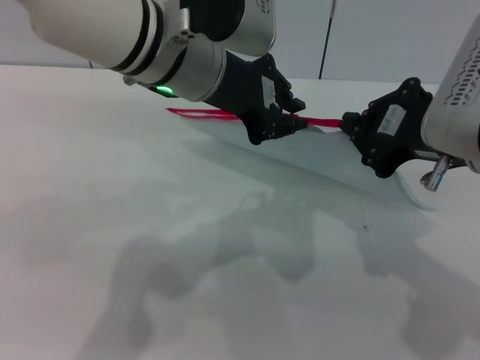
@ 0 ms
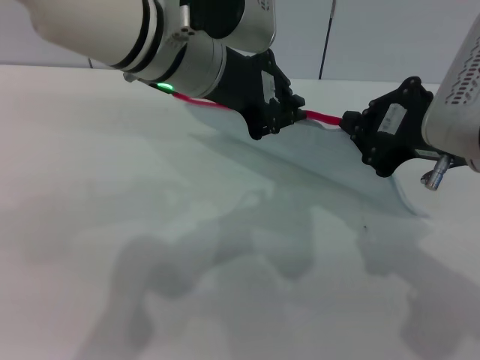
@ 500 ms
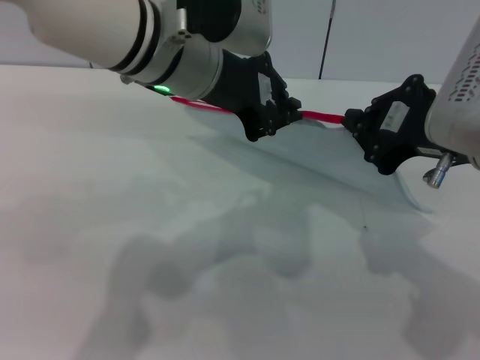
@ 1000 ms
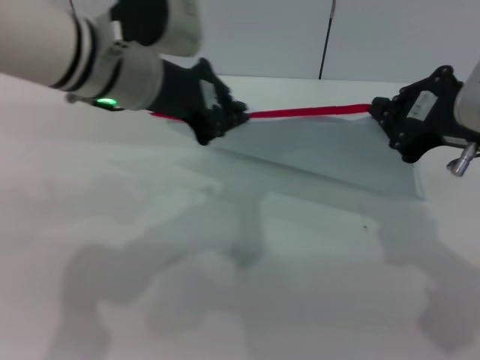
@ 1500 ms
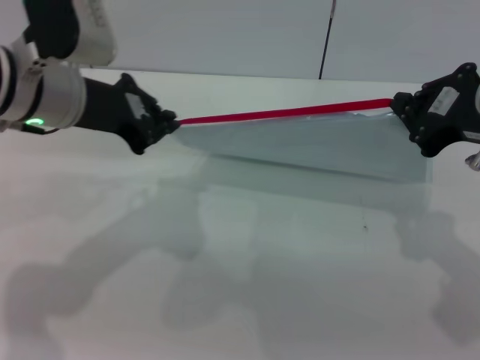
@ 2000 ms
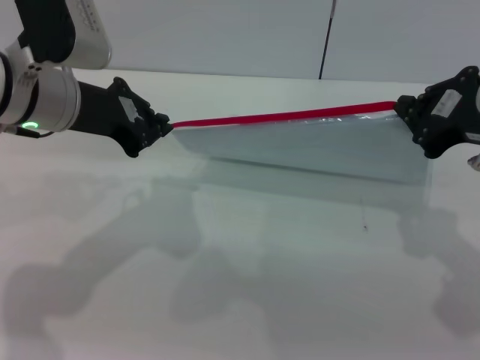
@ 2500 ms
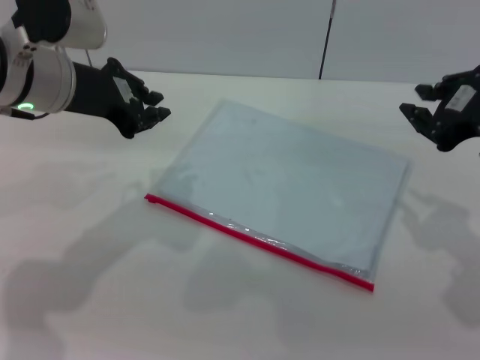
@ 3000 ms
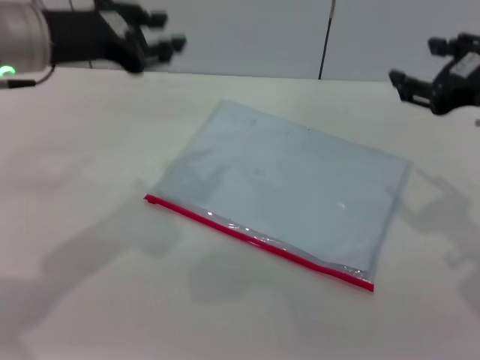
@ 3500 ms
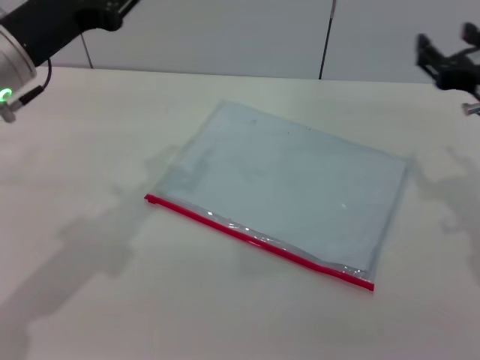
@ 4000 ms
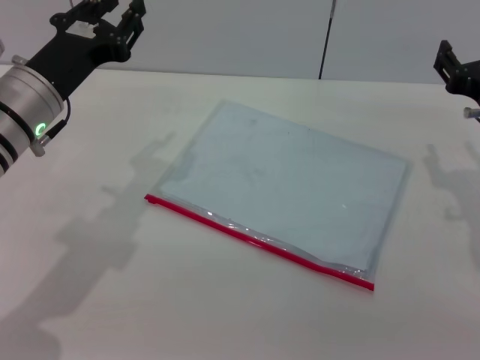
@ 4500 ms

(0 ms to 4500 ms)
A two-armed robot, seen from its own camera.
Step, 0 ms - 2500 ms: Pulling up the zipper on the transparent plastic bag with the left gripper to close it.
0 ms - 2000 ms: The left gripper goes about 10 cm to the left.
2000 ms - 4500 ms: The right gripper goes about 10 cm downward, and opens its fingers. Meanwhile the left gripper heads downward, covering roughly 5 cm, and opens up.

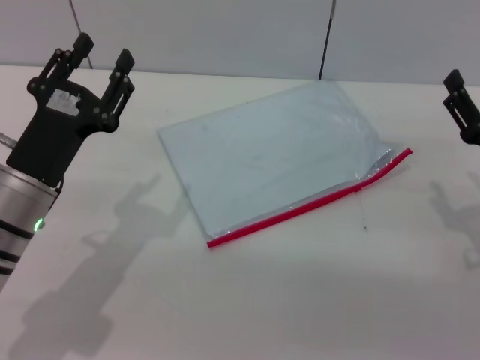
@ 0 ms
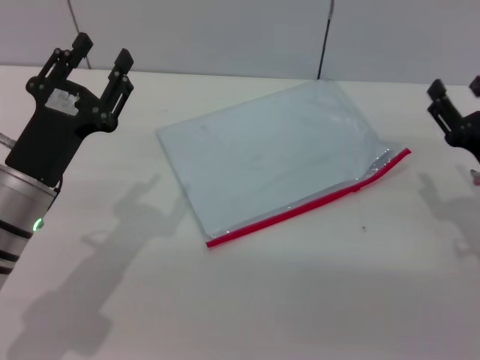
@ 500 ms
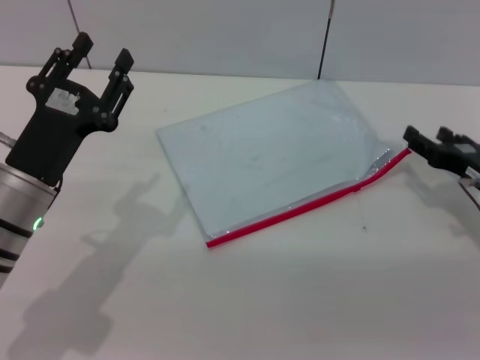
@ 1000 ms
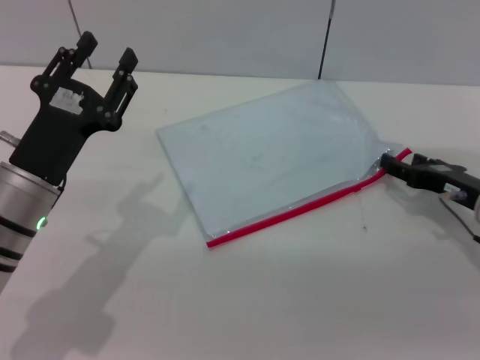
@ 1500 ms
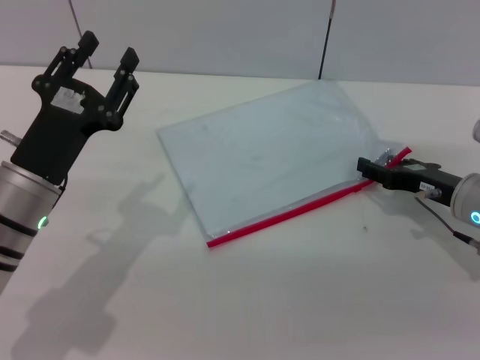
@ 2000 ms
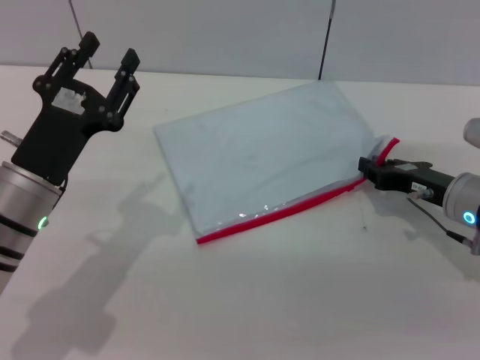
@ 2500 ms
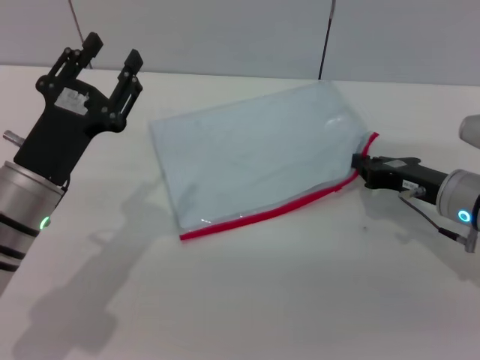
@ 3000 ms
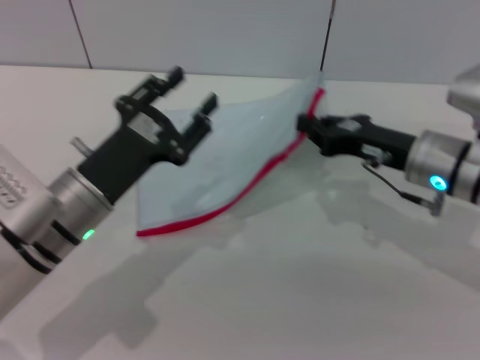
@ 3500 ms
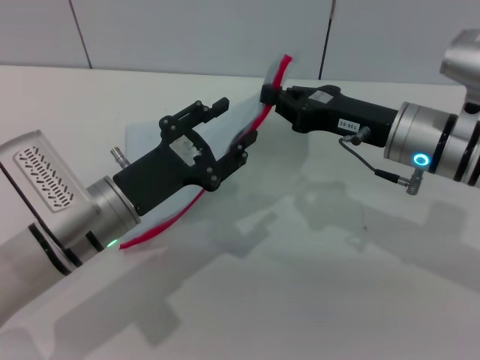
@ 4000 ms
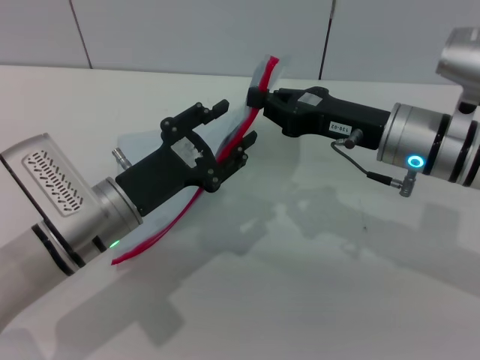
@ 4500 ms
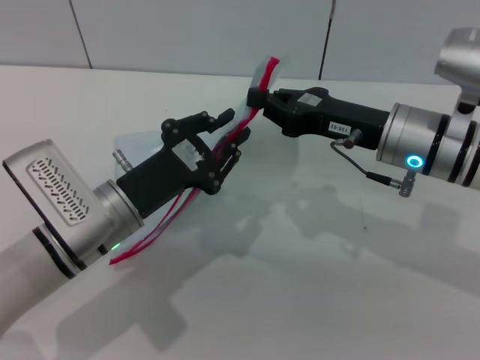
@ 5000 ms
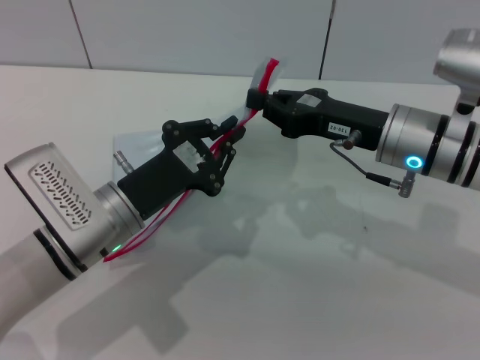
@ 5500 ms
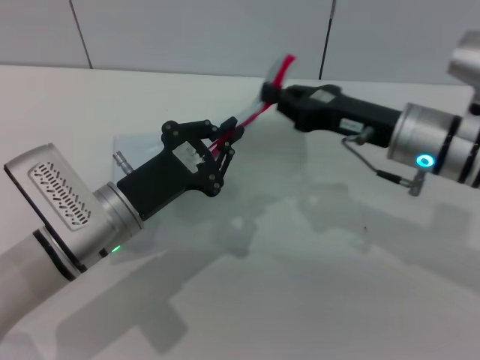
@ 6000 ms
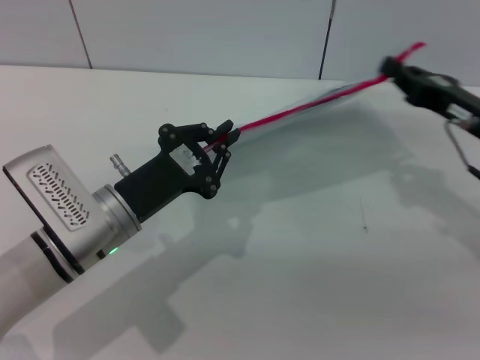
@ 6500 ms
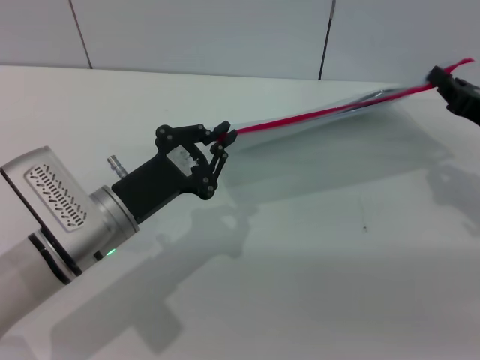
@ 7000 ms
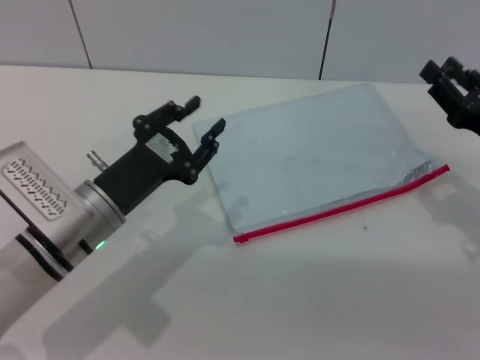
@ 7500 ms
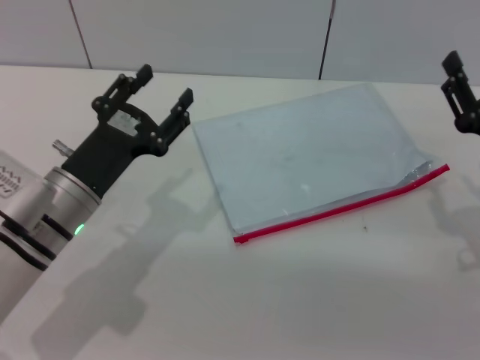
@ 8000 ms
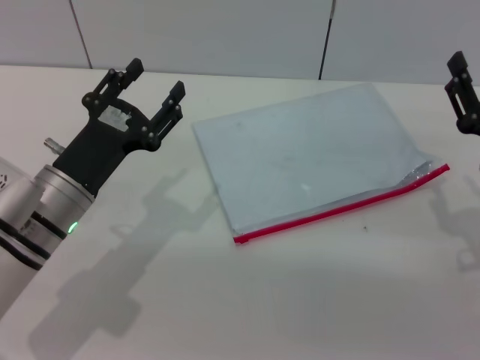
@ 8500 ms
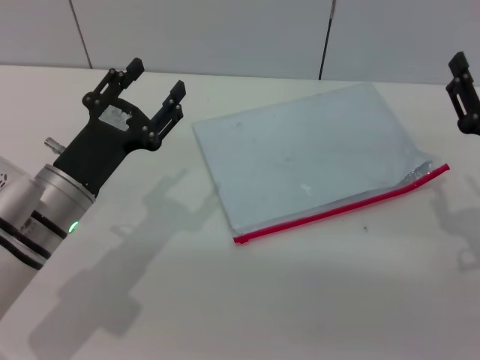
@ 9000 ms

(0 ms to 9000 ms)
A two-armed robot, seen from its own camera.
Step, 0 ms - 3500 ms: Pick up the transparent plastic bag with the right gripper.
Step, 7500 ms - 8000 ms: Place the transparent plastic bag.
0 ms - 2000 ms: The right gripper heads forward, covering approximately 5 cm.
2000 ms - 4500 ms: The left gripper is displaced to the right by about 5 cm, while the right gripper moves to the left and upward, some 15 cm, and closes up.
4500 ms - 7000 ms: The right gripper heads to the right, covering approximately 15 cm, while the left gripper closes its fingers.
7000 ms - 9000 ms: The right gripper is displaced backward by some 5 cm, and opens up. Meanwhile the left gripper opens its fingers.
